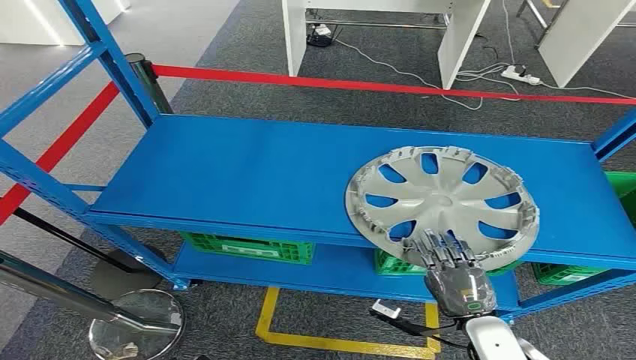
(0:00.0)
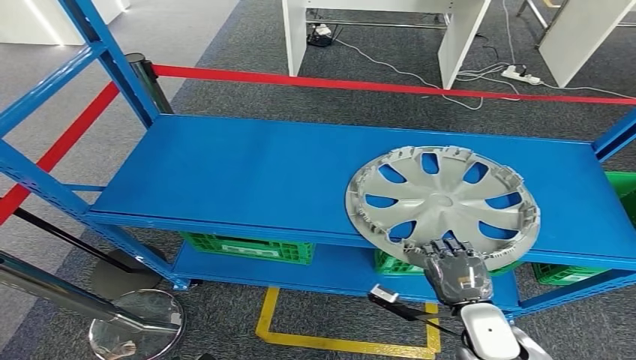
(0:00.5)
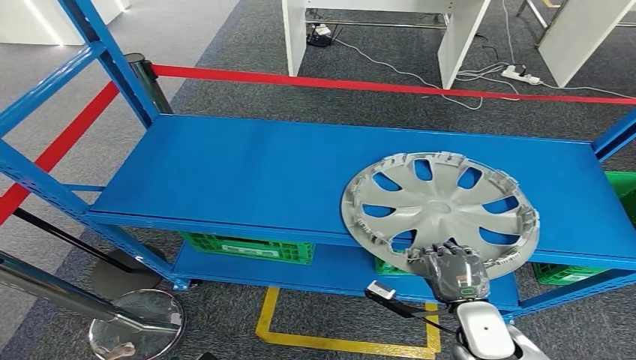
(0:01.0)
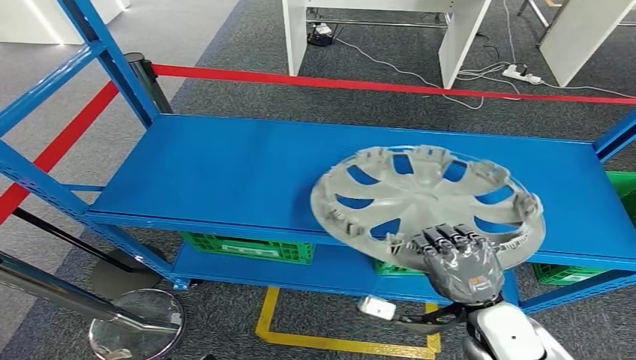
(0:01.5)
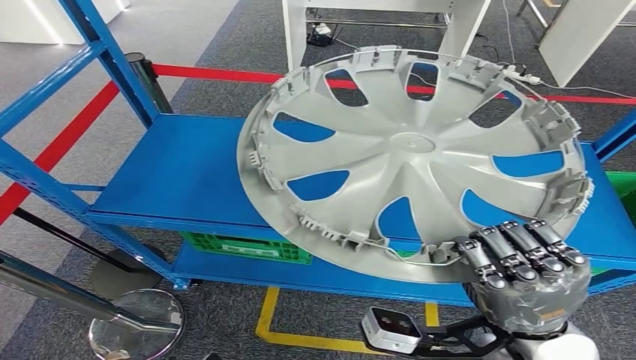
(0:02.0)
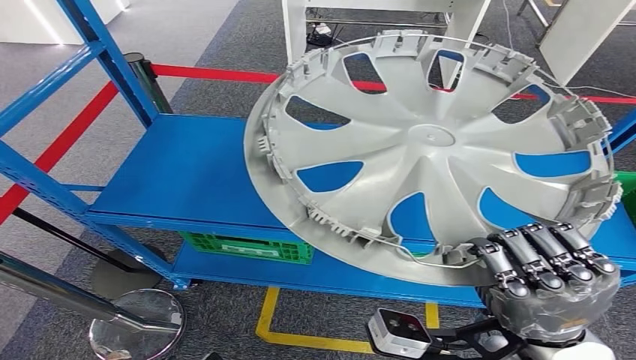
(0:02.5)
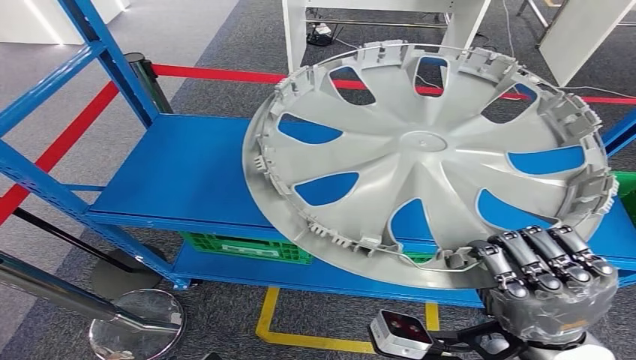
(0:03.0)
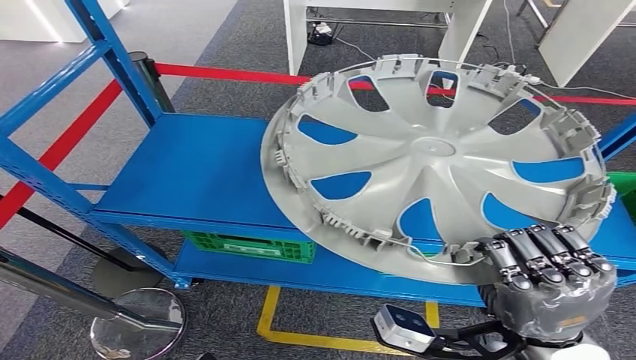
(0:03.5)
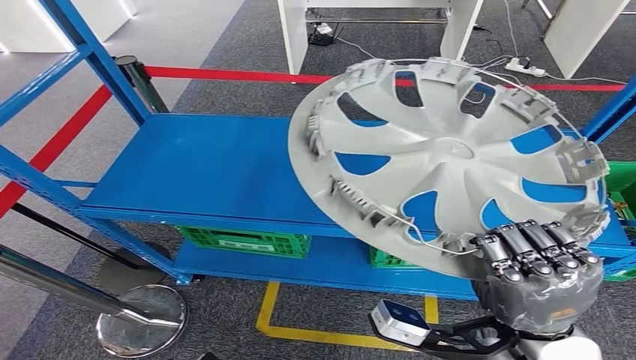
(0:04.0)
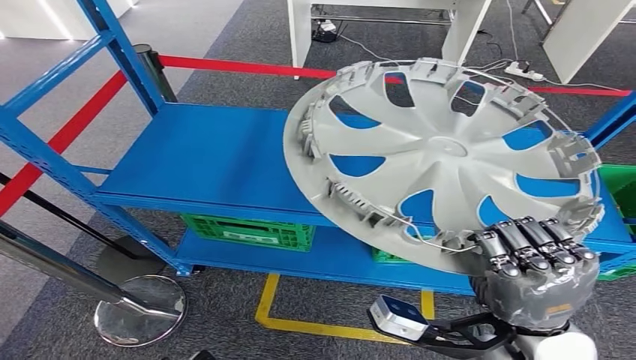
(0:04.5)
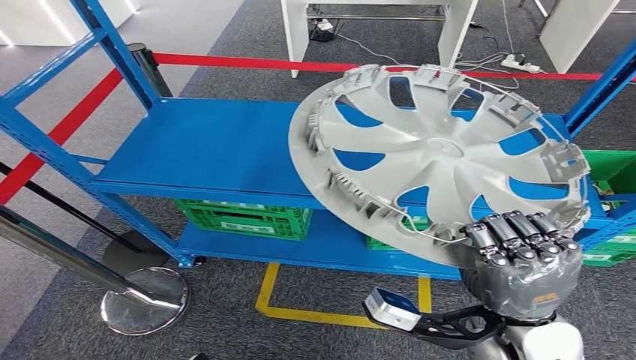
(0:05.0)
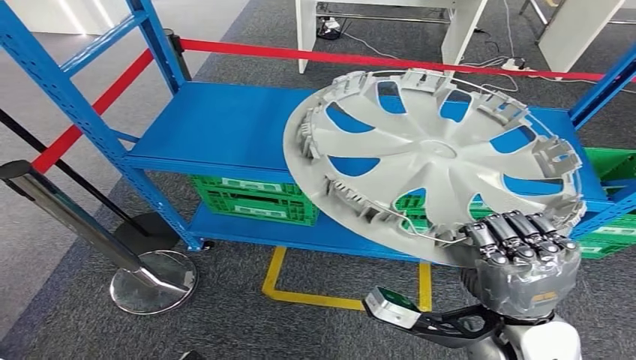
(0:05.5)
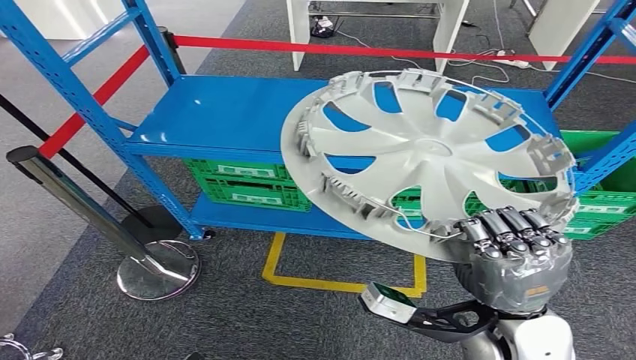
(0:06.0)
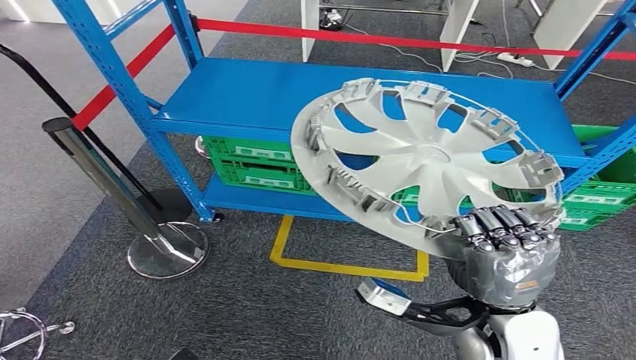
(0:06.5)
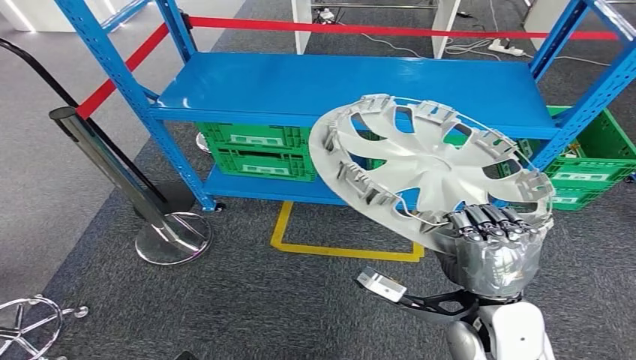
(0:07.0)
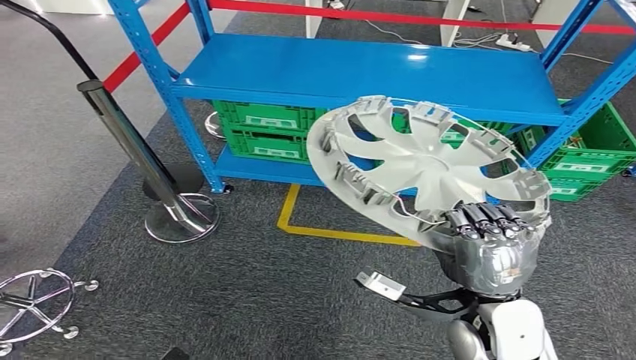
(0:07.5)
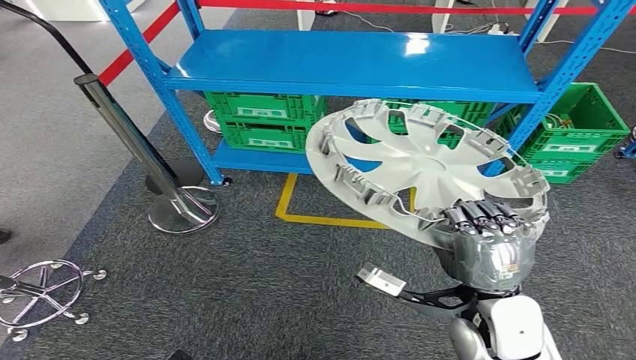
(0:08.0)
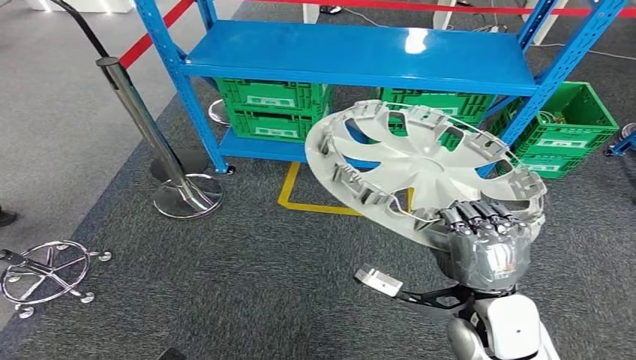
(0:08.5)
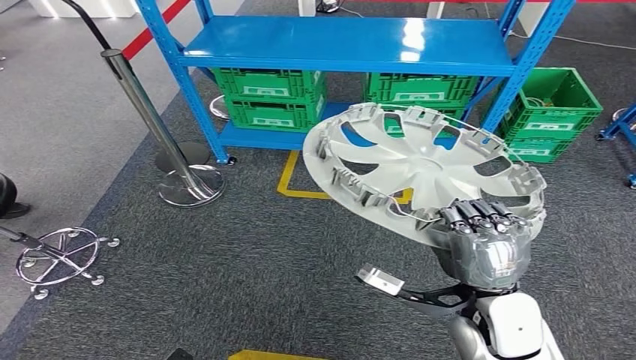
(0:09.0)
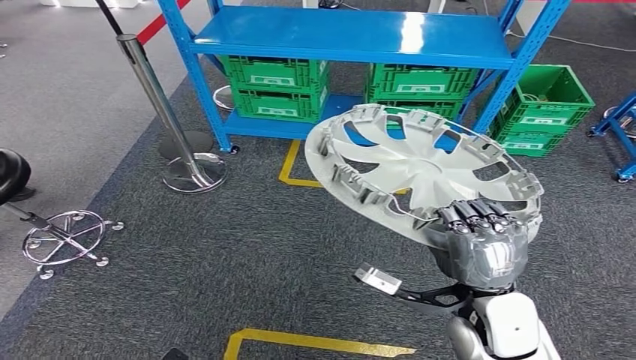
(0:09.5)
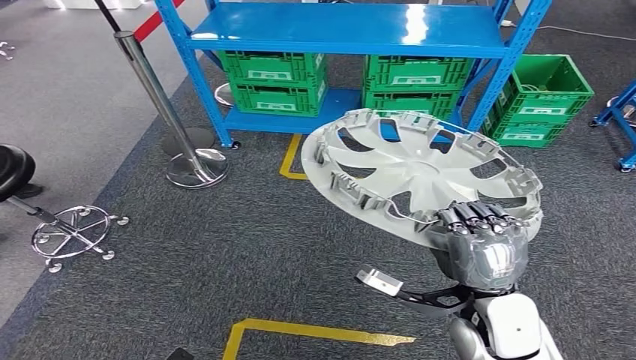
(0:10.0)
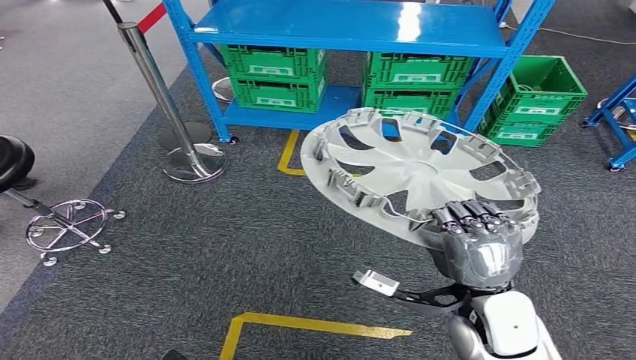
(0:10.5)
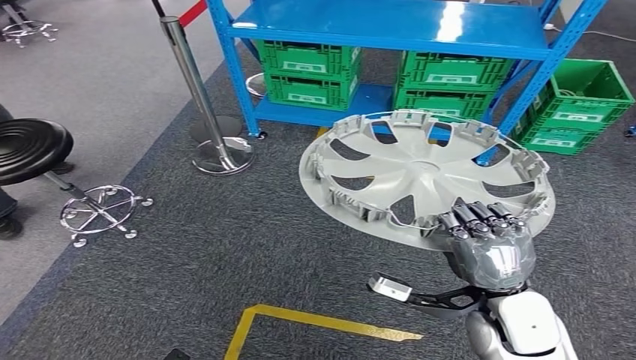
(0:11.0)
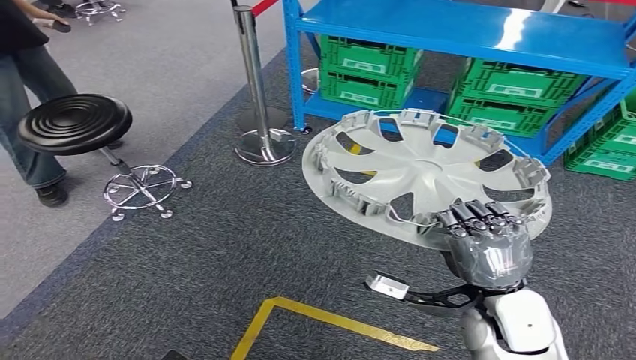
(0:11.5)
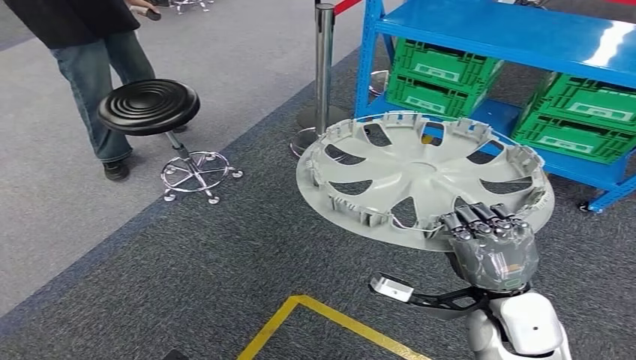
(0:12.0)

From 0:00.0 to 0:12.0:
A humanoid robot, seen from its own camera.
Step, from 0:00.0 to 0:02.5: Pick up the small component from the shelf.

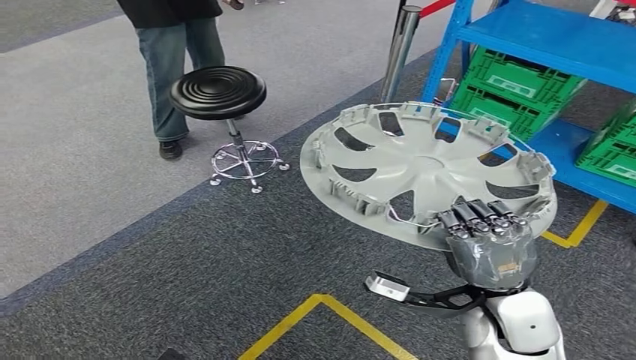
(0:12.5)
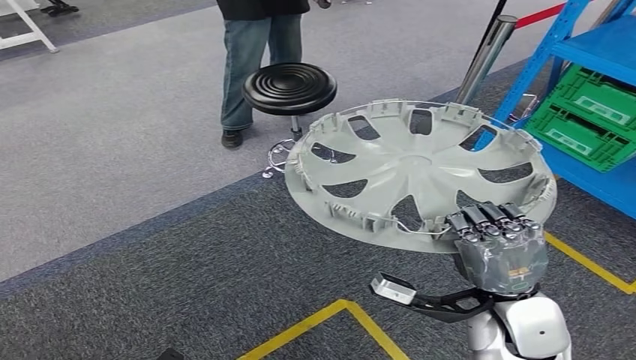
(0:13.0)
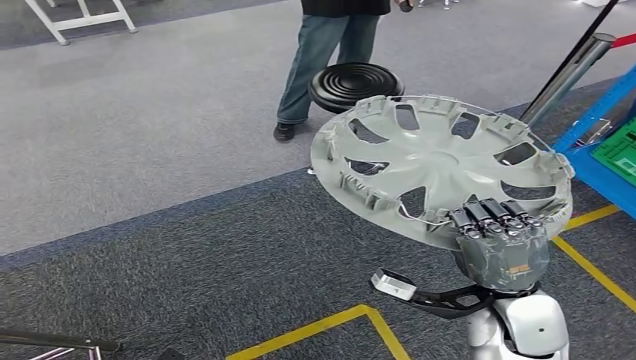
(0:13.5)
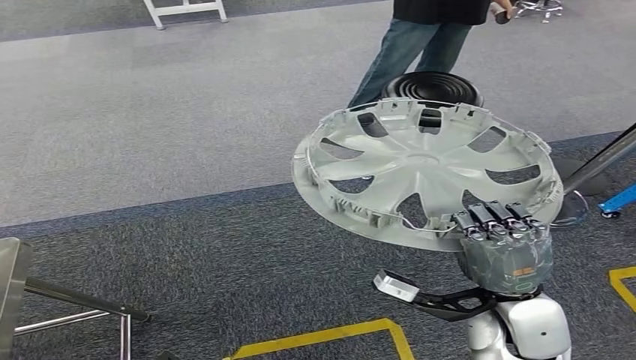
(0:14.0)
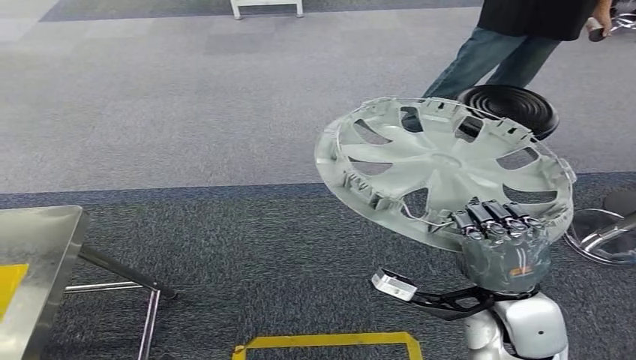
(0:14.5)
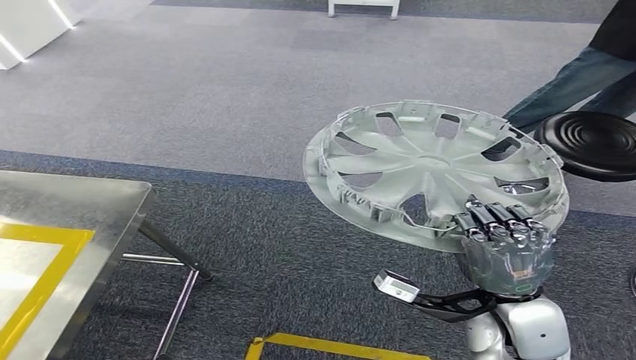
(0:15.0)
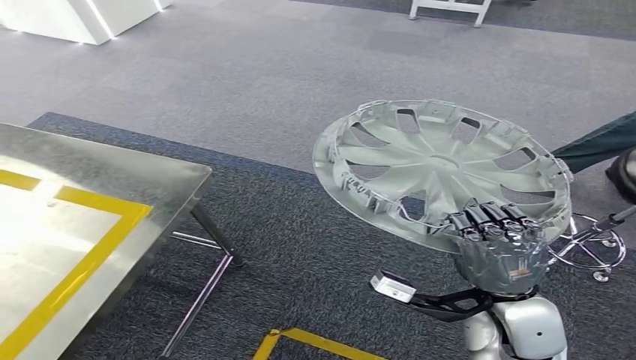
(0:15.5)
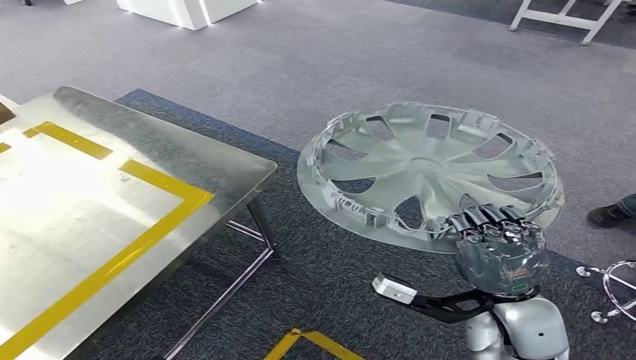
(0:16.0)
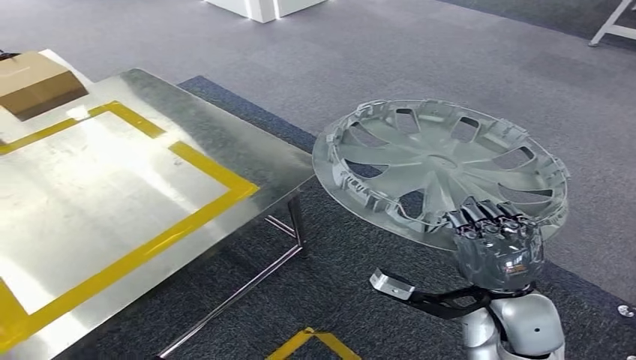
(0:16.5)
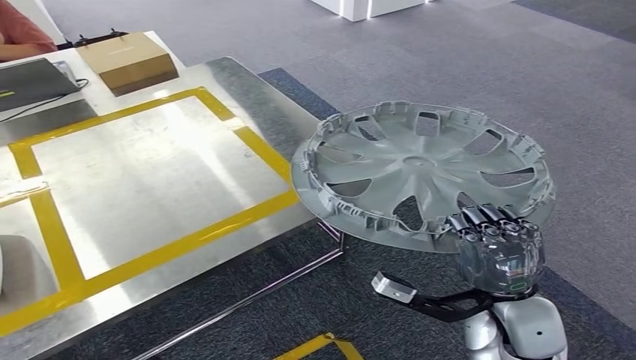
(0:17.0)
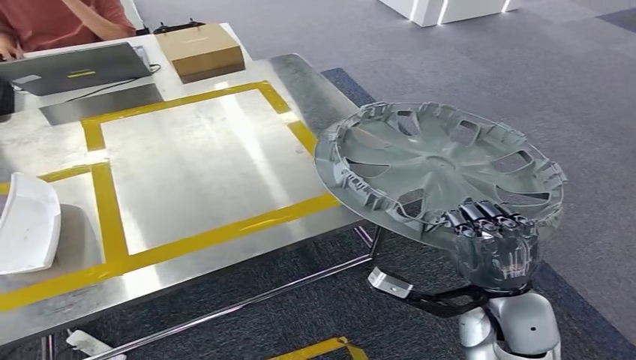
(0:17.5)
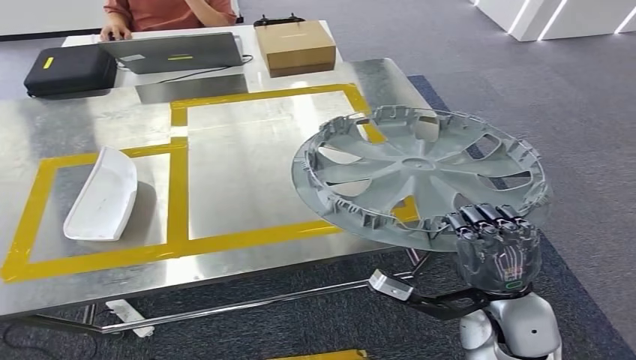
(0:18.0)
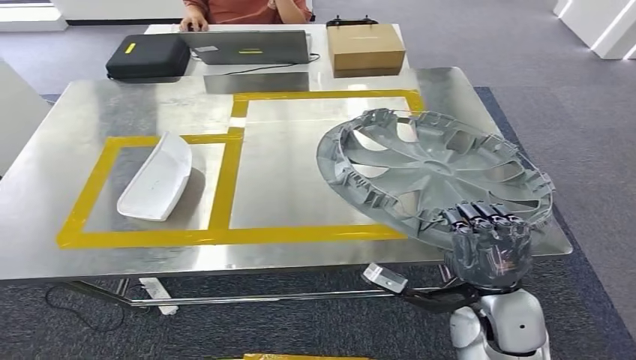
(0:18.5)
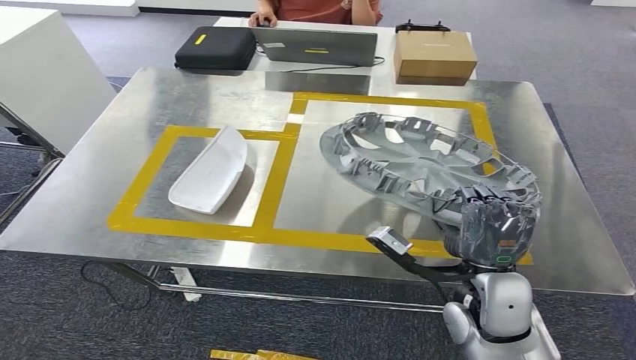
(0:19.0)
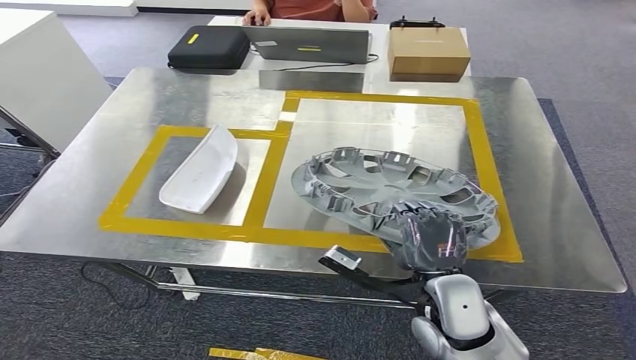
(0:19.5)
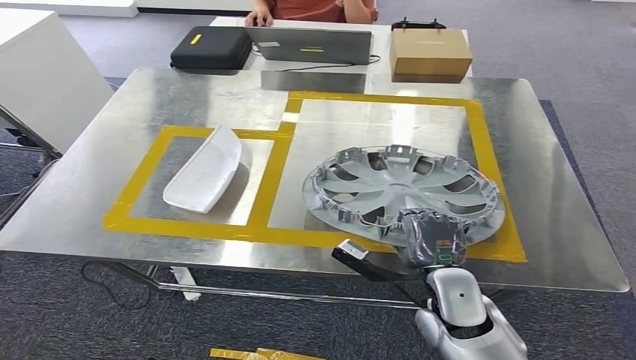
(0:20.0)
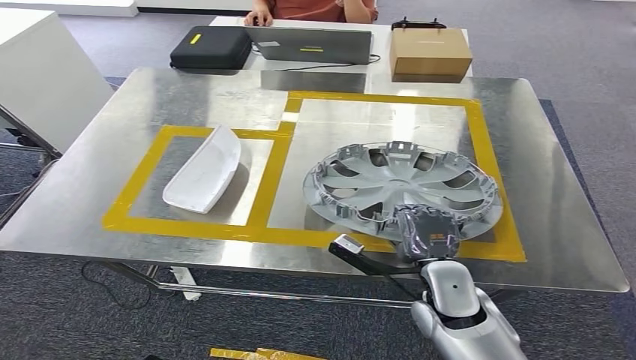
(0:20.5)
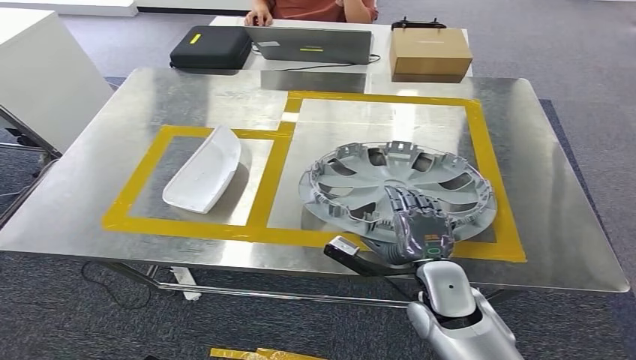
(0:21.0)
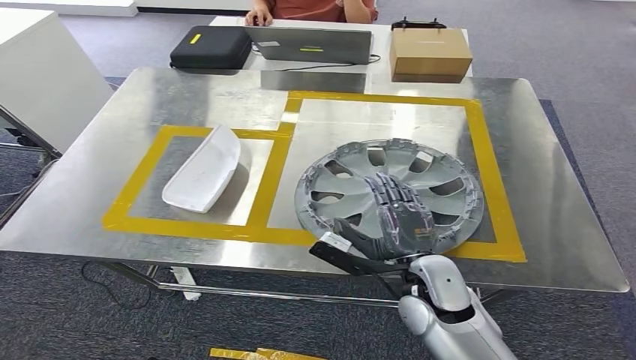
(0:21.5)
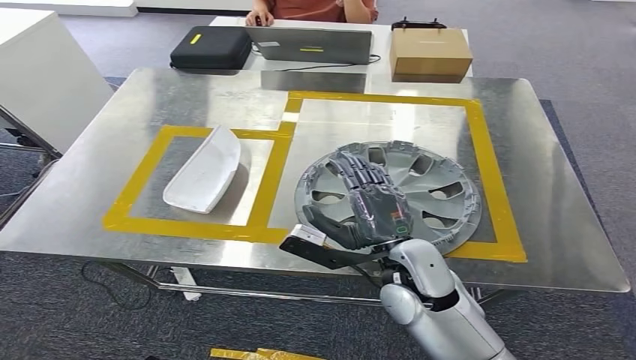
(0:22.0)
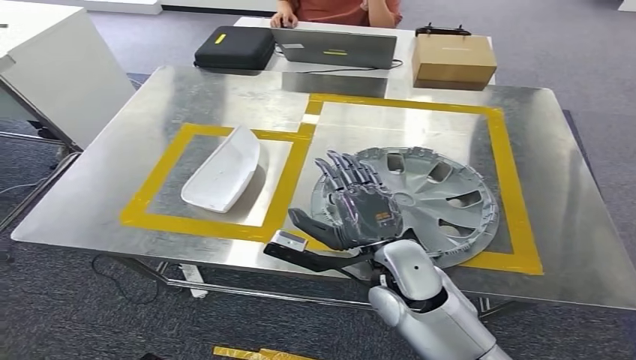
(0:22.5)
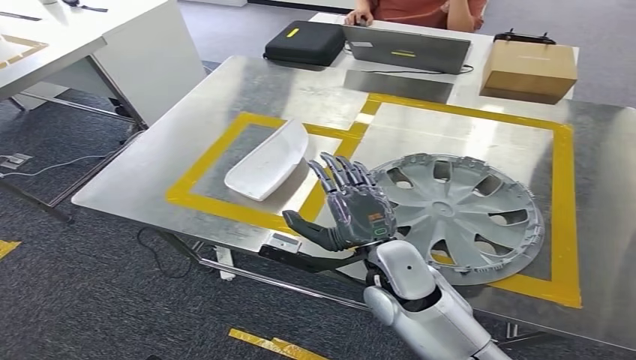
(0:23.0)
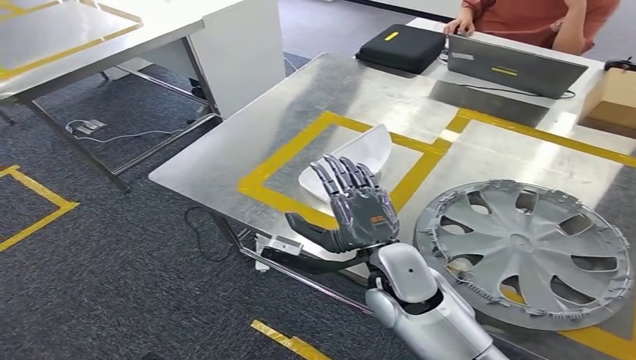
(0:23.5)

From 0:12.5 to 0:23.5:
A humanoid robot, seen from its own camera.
Step, from 0:12.5 to 0:17.5: Bring the small component to the front of the workbench.
Step, from 0:18.0 to 0:23.0: Insert the small component into the corresponding slot on the workbench.
From 0:20.0 to 0:21.5: The hands make only small movements.
